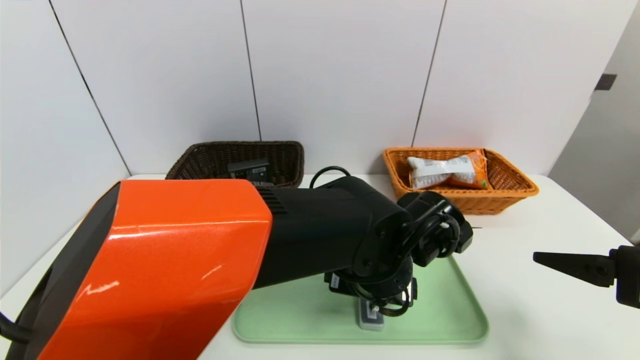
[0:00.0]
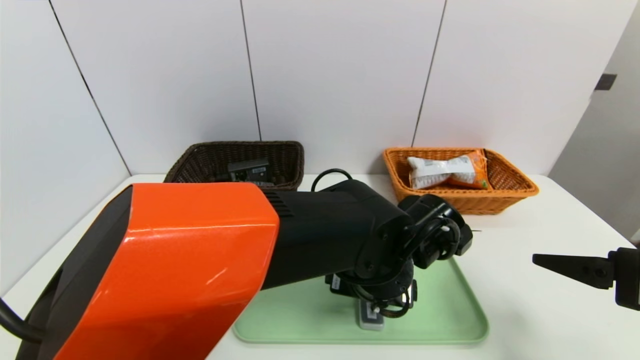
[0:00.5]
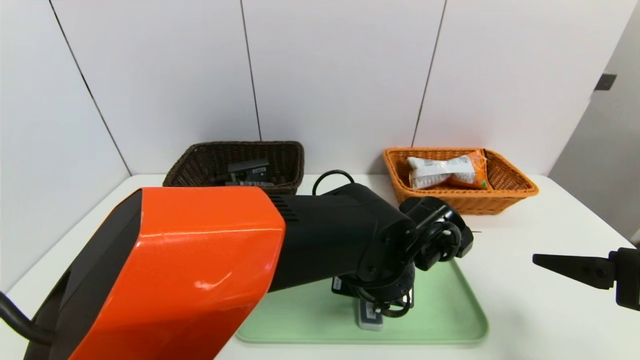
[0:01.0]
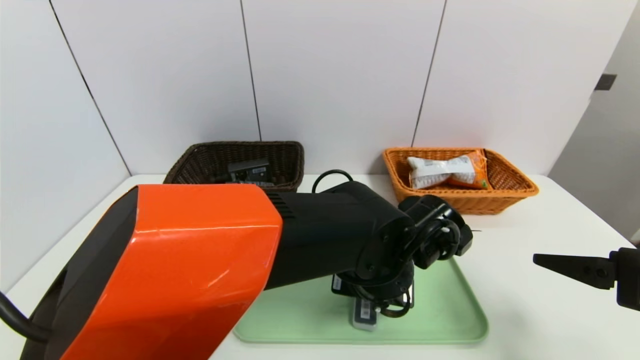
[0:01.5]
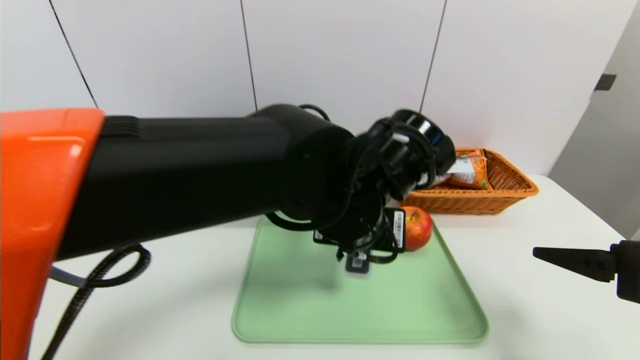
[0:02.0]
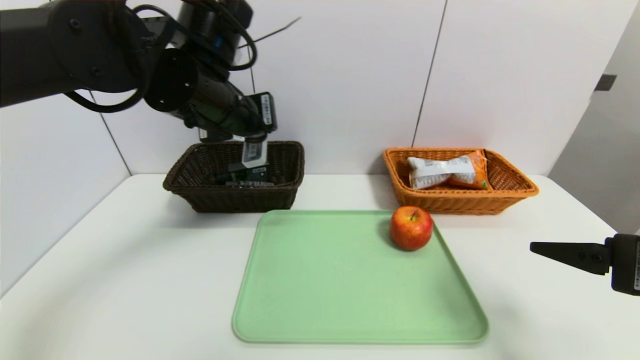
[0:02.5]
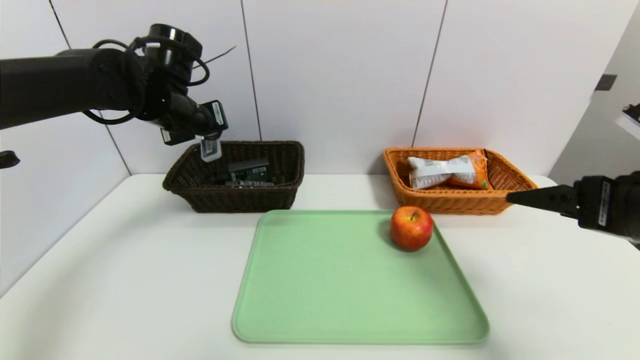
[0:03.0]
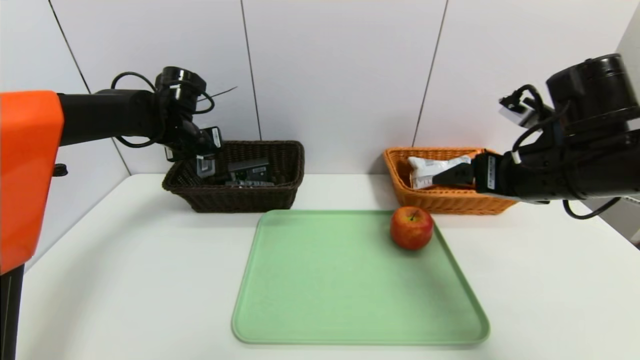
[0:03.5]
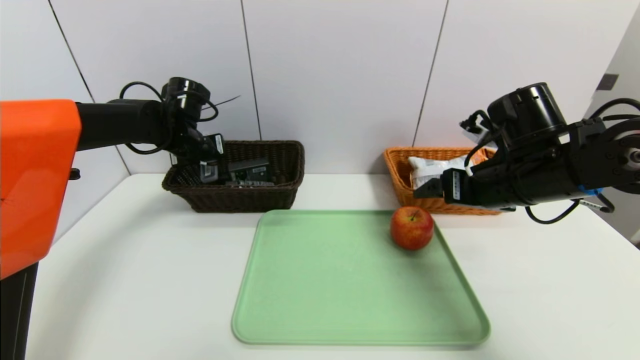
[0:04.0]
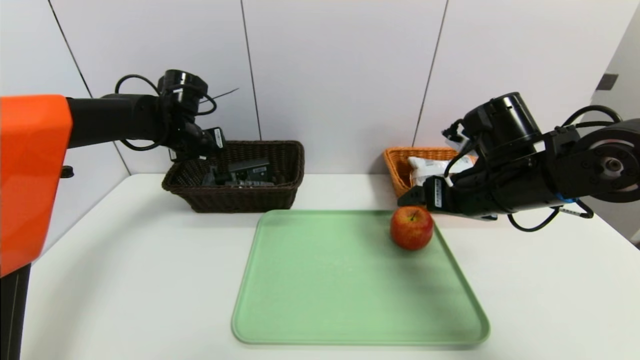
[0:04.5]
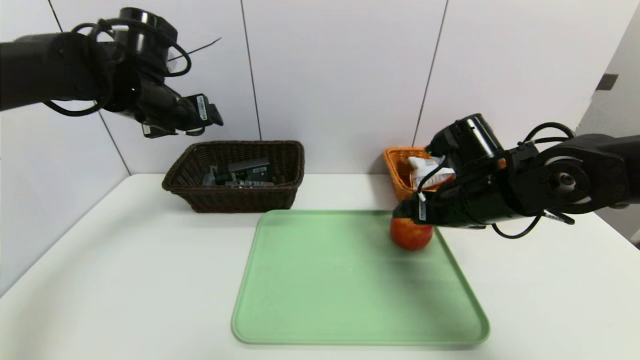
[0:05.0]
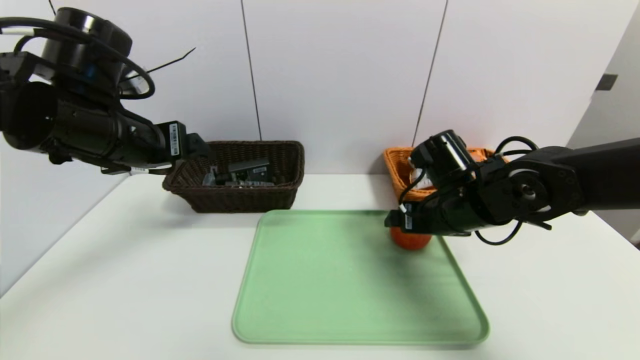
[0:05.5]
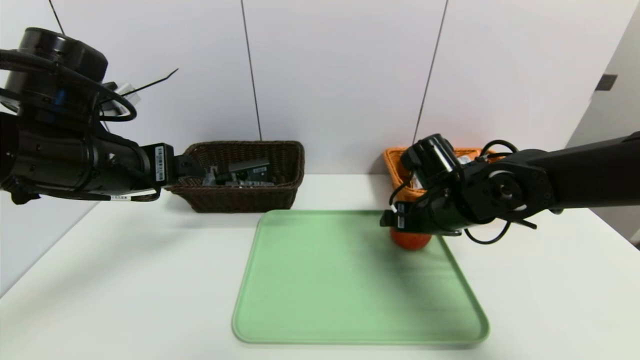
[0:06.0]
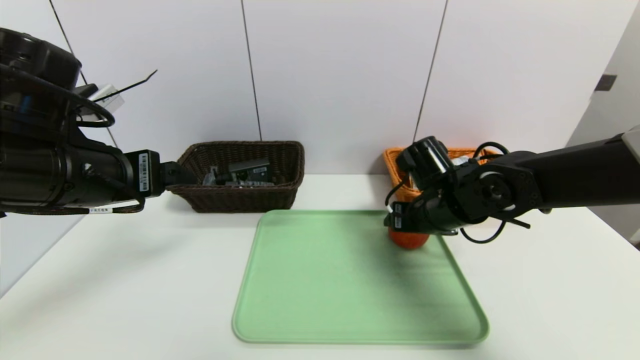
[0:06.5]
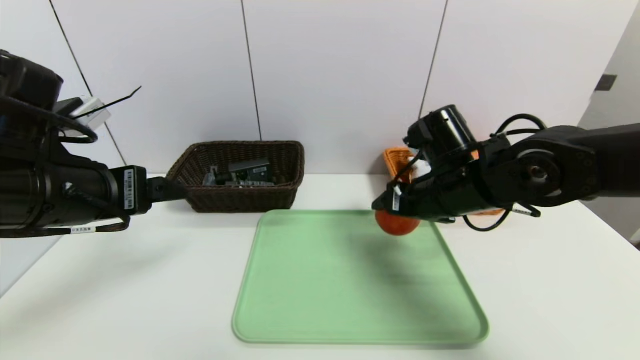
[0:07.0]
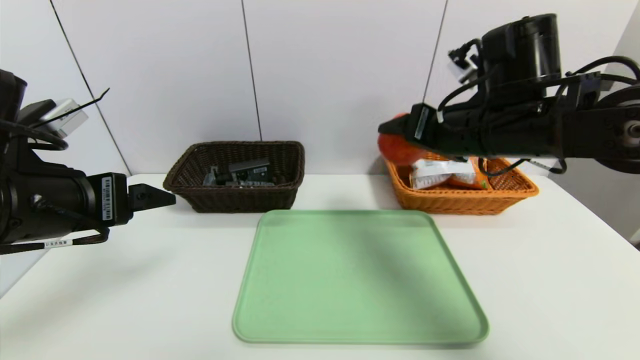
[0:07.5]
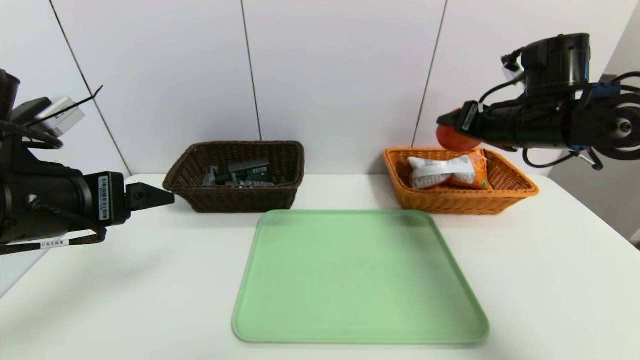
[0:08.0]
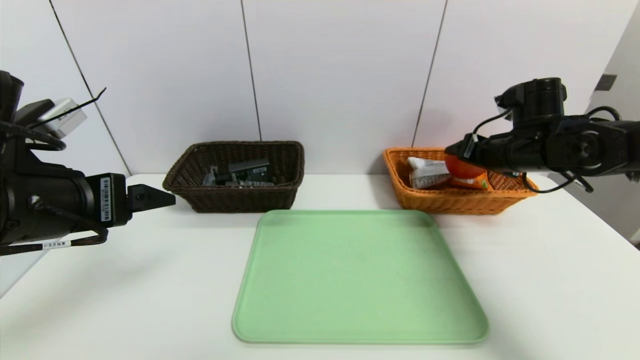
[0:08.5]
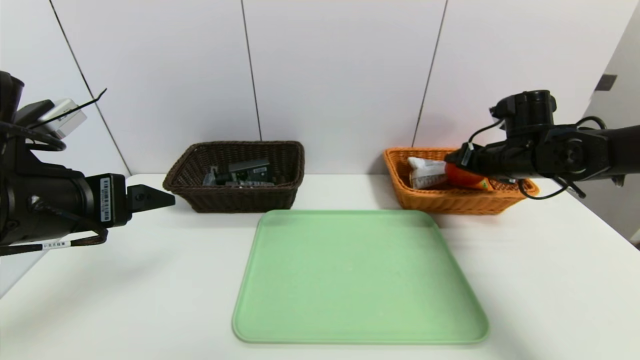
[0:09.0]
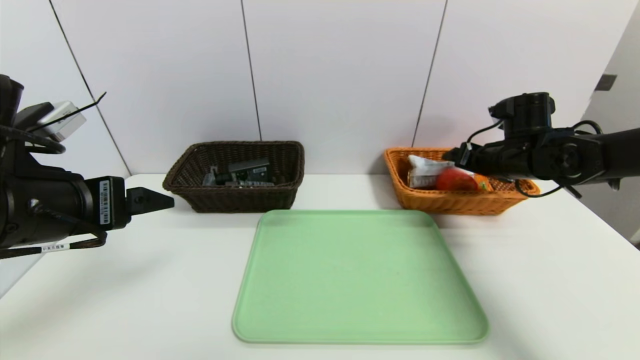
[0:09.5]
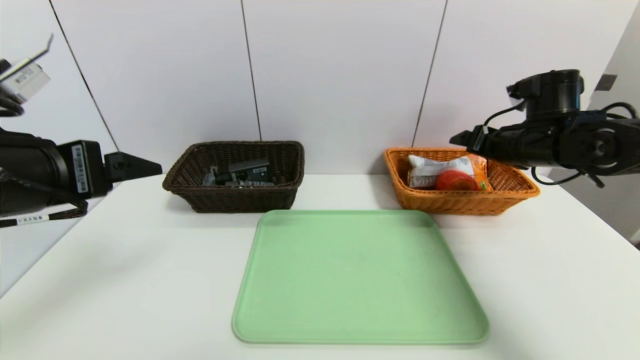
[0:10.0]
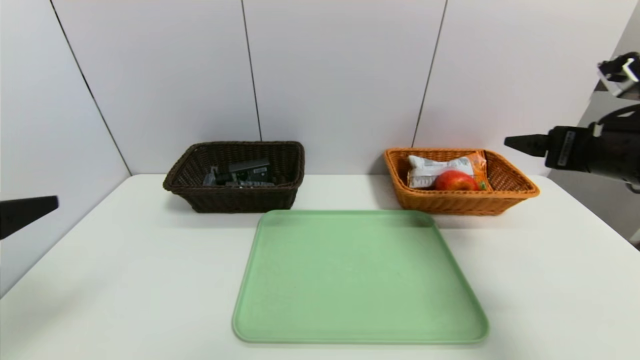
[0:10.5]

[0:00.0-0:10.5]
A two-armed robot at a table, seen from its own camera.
Task of the whole recording: place the food in the right basket with the right gripper, and place the non food items in the left basket with the left gripper.
Step, 0:00.0 to 0:04.5: Grasp the compass and put it in the left basket.
Step, 0:05.0 to 0:09.5: Grasp the apple and put it in the right basket.
0:00.0 to 0:02.0: The left gripper is displaced upward by about 10 cm, and closes its fingers.
0:02.0 to 0:04.0: The right gripper goes roughly 20 cm forward and to the left. Meanwhile the left gripper shifts roughly 35 cm to the left and forward.
0:04.0 to 0:06.5: The left gripper shifts some 25 cm backward, and opens its fingers. The right gripper moves downward and to the left, approximately 10 cm, and closes its fingers.
0:06.5 to 0:08.5: The right gripper shifts roughly 15 cm to the right, upward and forward.
0:08.5 to 0:10.5: The right gripper heads backward and upward, covering about 15 cm, while the left gripper moves backward, roughly 10 cm.

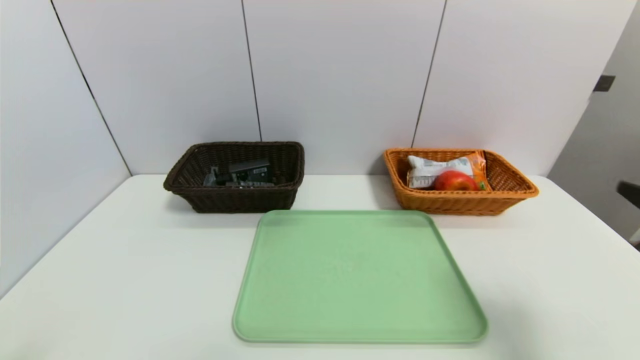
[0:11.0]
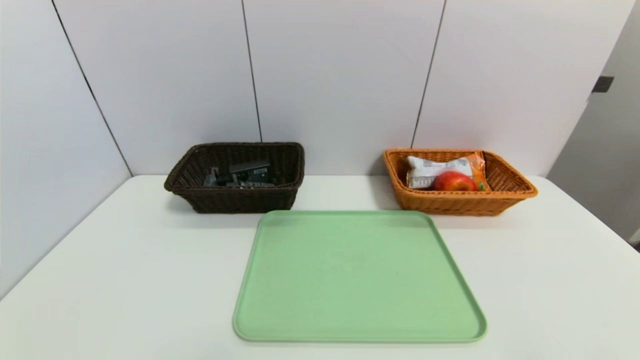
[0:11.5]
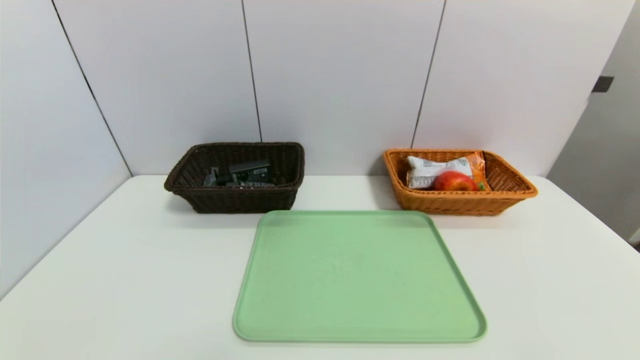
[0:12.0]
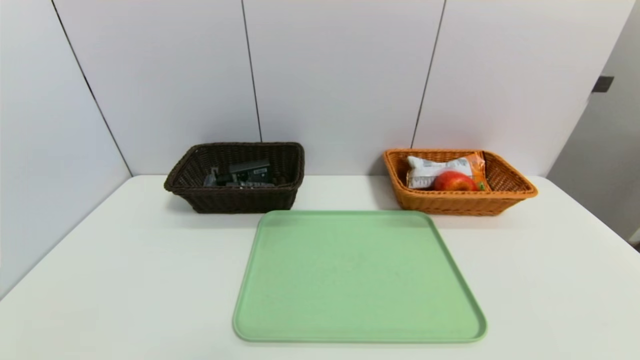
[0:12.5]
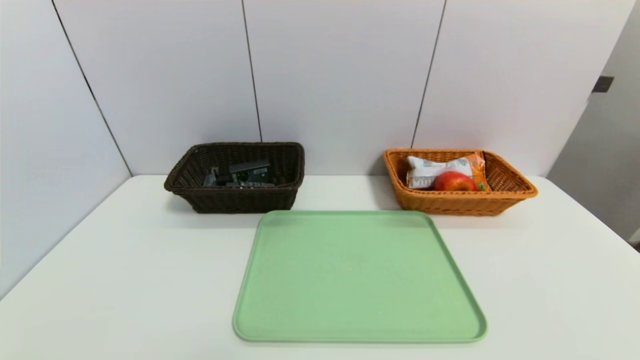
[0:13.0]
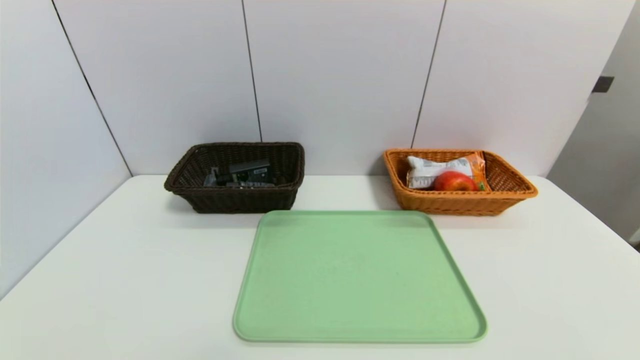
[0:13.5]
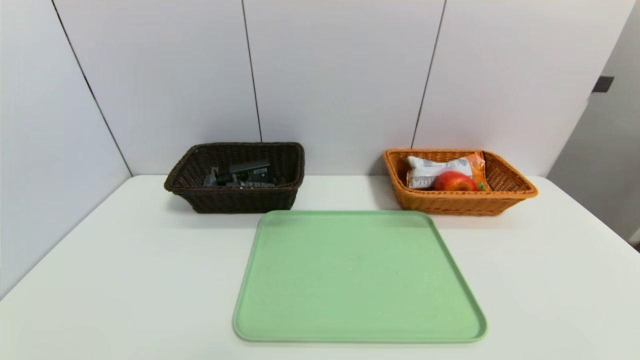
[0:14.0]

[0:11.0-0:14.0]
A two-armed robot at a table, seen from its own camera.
Task of the whole recording: place the food in the right basket with the right gripper, and place the non food items in the left basket with the left gripper.
0:11.0 to 0:12.5: The right gripper is displaced backward and downward by approximately 15 cm.

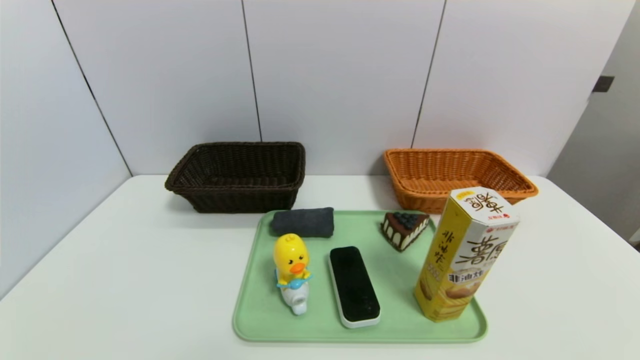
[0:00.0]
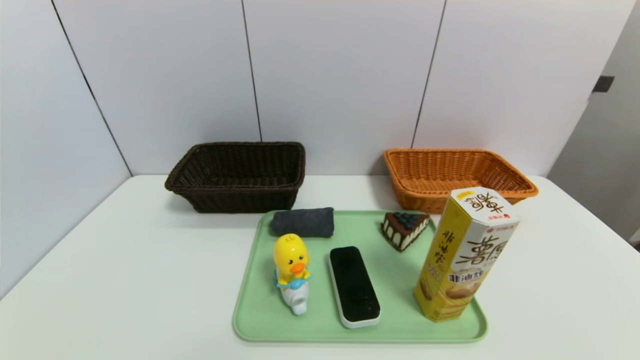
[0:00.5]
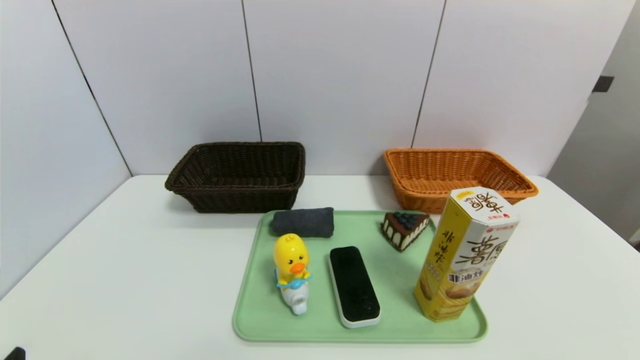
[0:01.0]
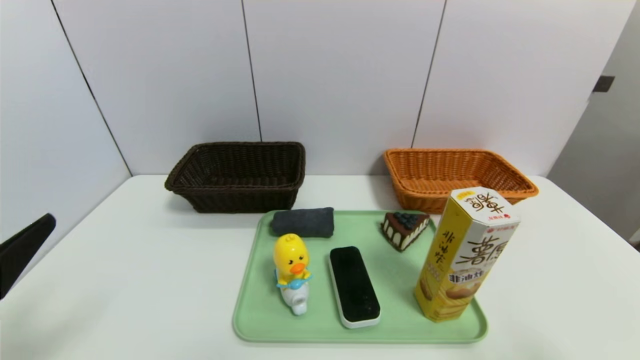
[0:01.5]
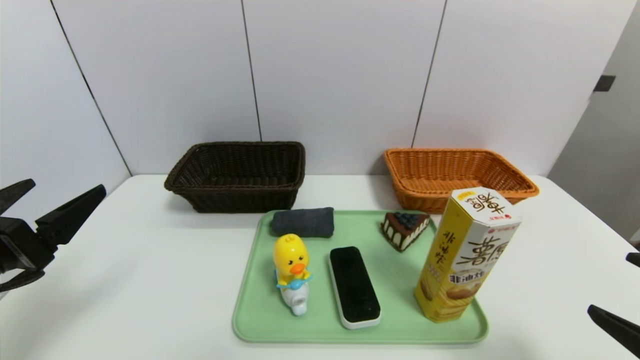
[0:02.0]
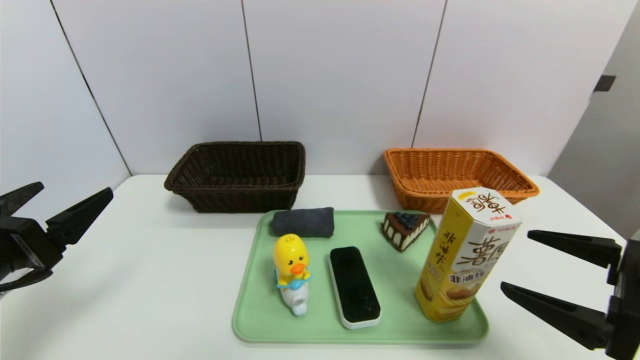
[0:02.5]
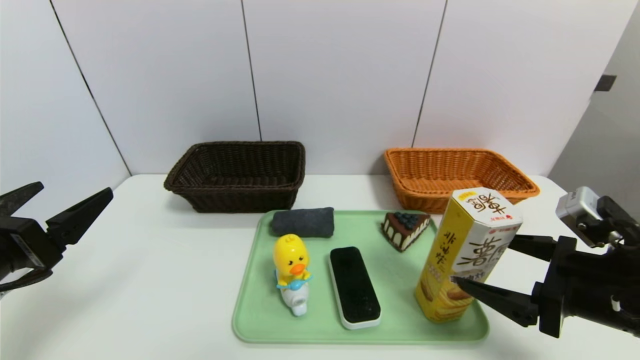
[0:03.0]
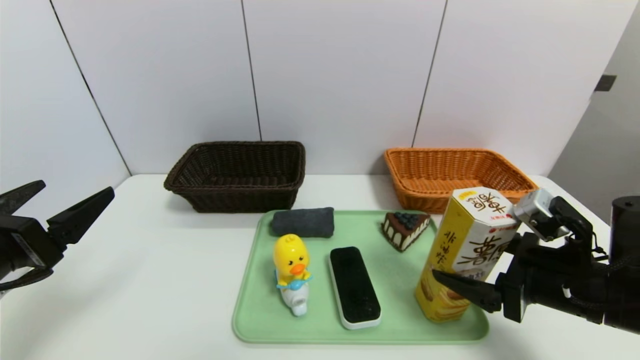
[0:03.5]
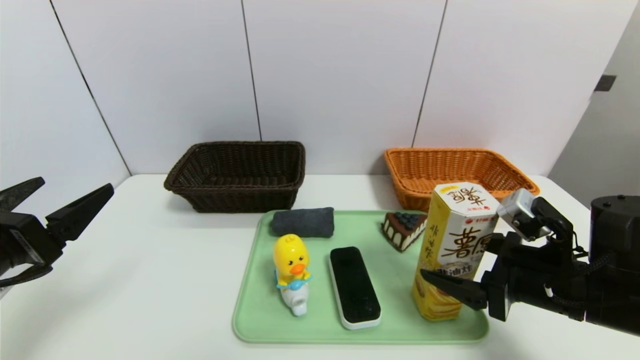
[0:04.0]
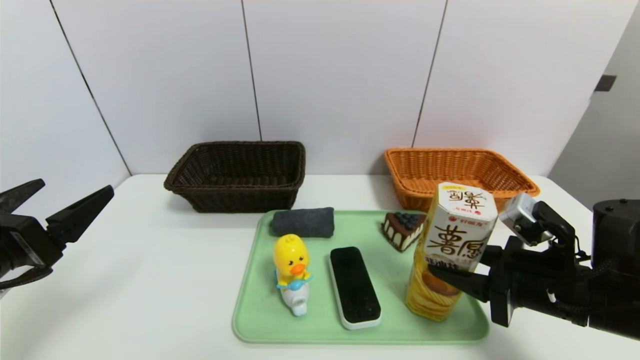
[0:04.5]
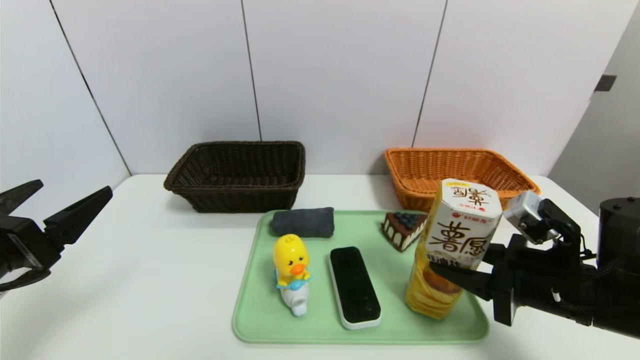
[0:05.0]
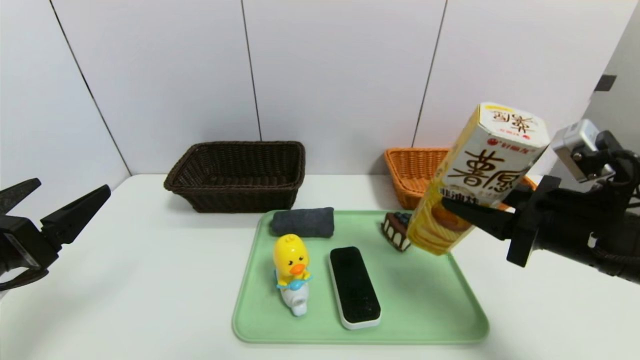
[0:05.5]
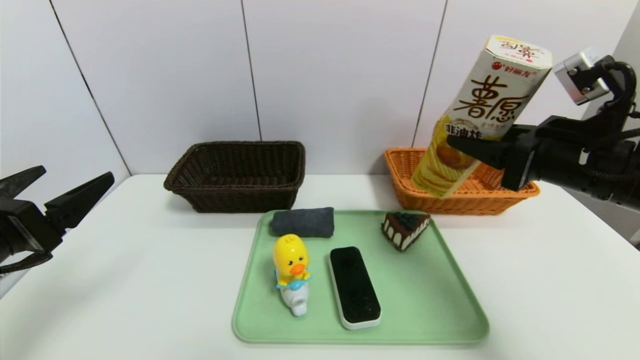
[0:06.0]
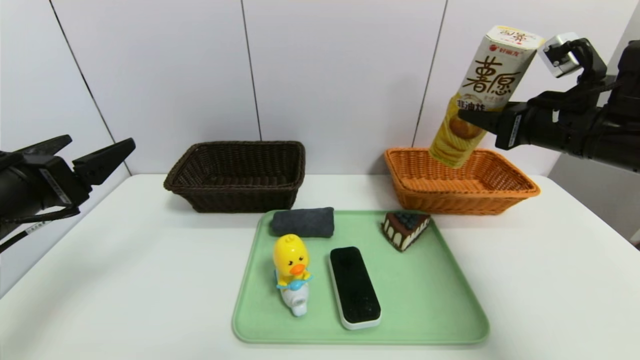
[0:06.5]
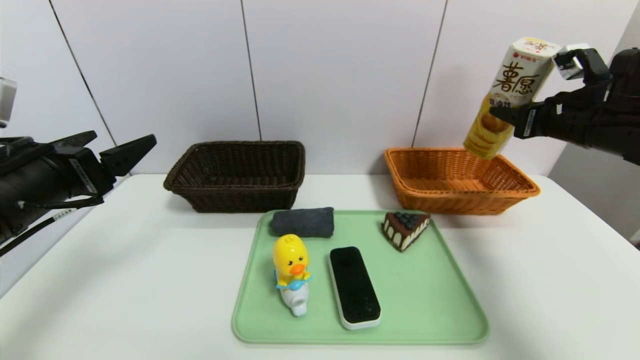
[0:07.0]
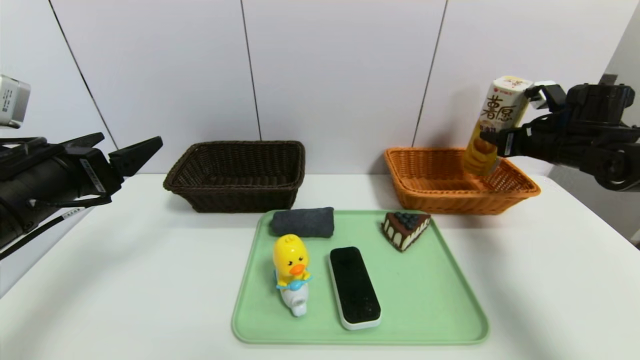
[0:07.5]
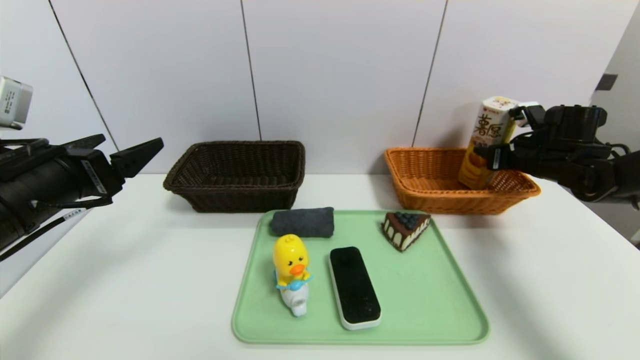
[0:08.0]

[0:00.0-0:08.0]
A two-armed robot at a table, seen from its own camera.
Task of the whole recording: place the food in the right basket with the right gripper, and place the non food items in the left basket with the left gripper.
0:00.0 to 0:02.0: The right gripper is displaced upward and forward by roughly 15 cm. Meanwhile the left gripper moves forward and upward, some 20 cm.
0:02.0 to 0:04.0: The right gripper shifts some 15 cm forward and to the left.
0:04.0 to 0:06.0: The right gripper heads upward, covering some 10 cm, and closes.
0:06.0 to 0:08.0: The right gripper shifts approximately 25 cm forward, to the right and downward; the left gripper moves forward, approximately 5 cm.
